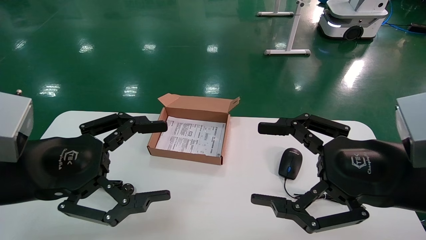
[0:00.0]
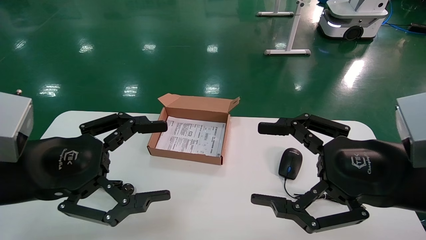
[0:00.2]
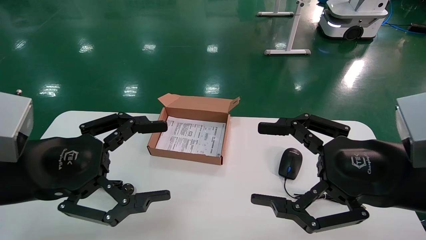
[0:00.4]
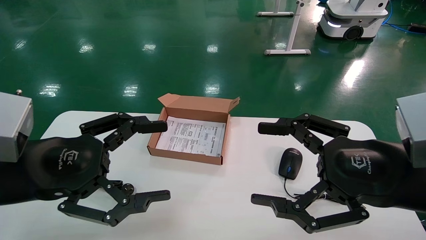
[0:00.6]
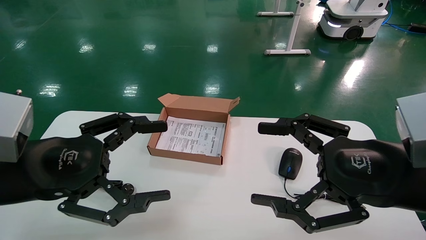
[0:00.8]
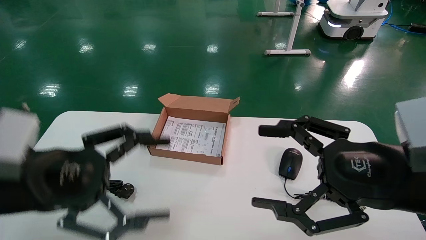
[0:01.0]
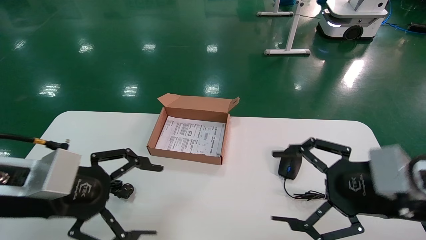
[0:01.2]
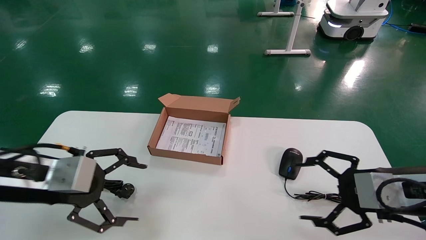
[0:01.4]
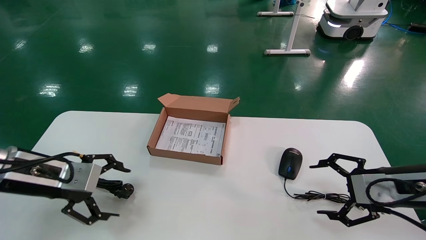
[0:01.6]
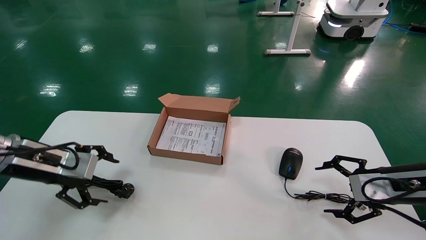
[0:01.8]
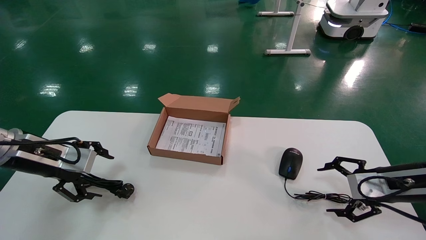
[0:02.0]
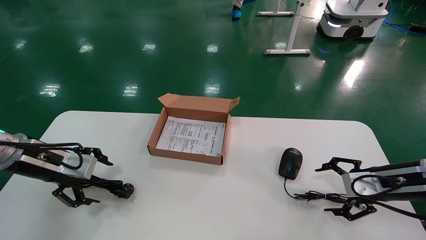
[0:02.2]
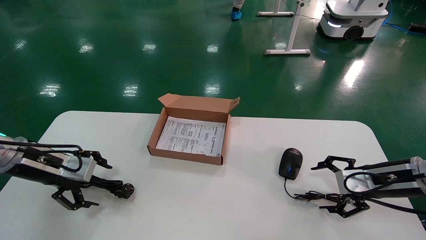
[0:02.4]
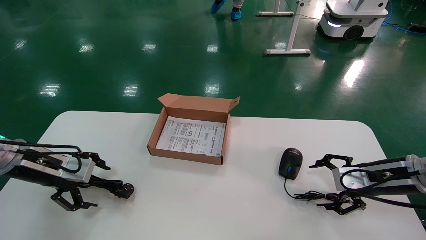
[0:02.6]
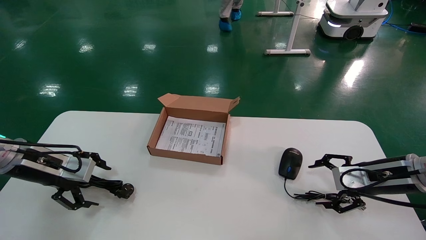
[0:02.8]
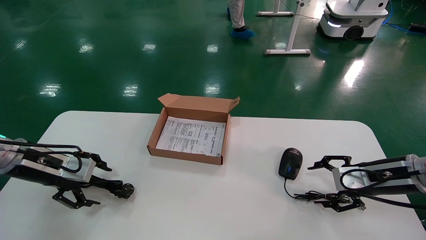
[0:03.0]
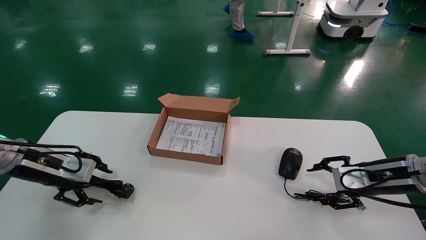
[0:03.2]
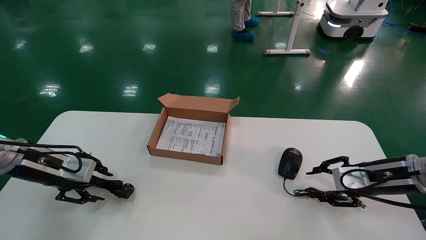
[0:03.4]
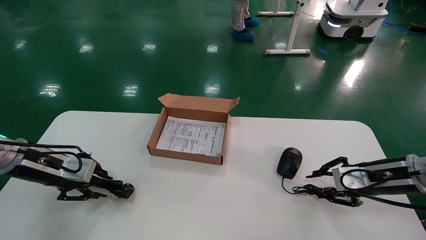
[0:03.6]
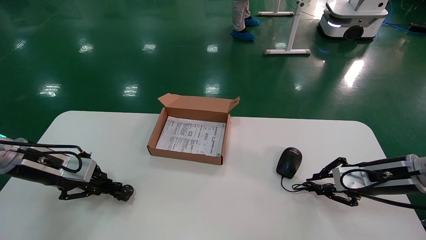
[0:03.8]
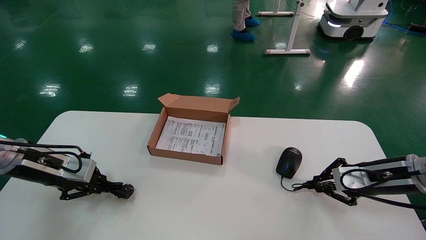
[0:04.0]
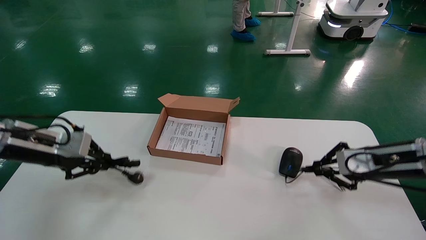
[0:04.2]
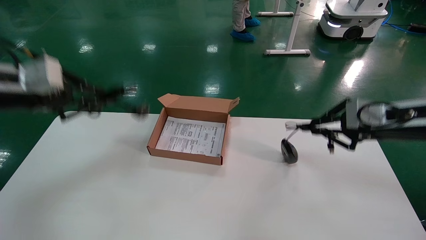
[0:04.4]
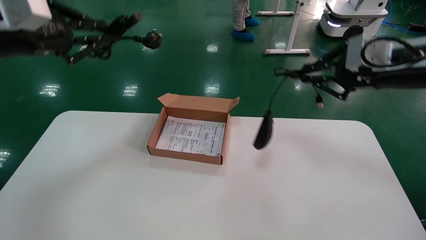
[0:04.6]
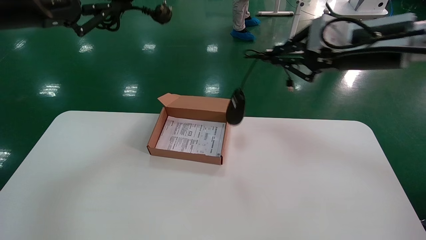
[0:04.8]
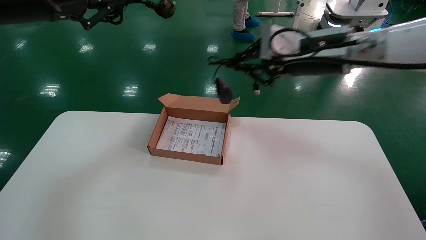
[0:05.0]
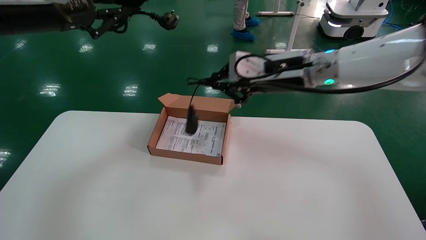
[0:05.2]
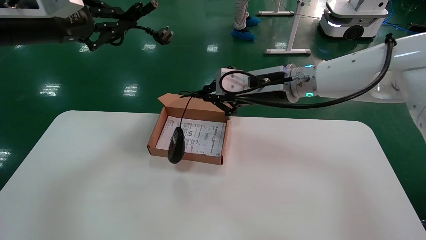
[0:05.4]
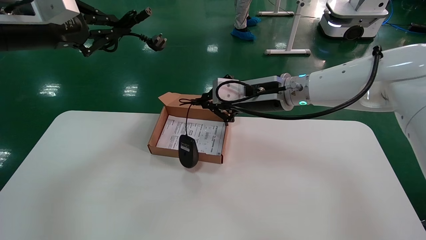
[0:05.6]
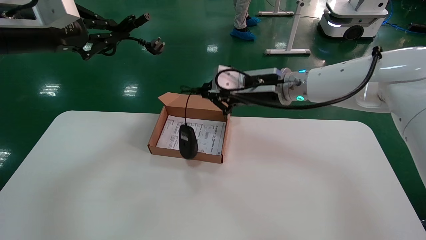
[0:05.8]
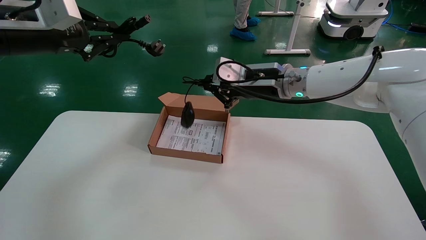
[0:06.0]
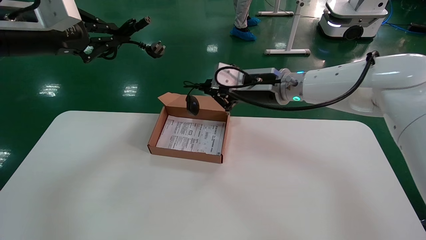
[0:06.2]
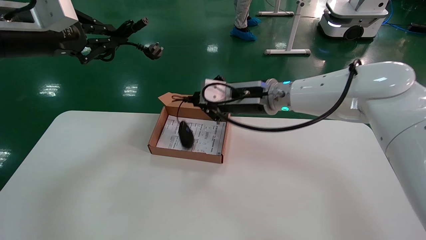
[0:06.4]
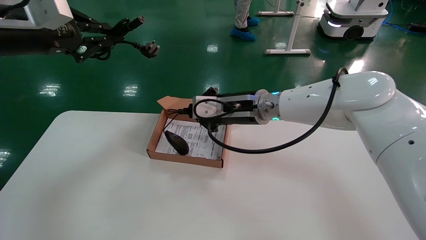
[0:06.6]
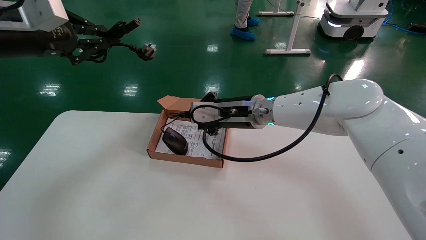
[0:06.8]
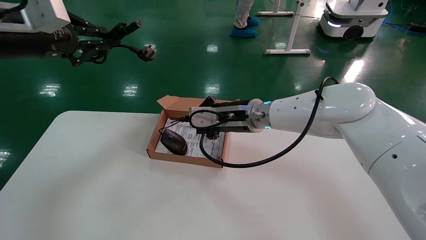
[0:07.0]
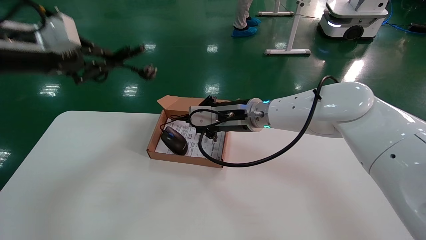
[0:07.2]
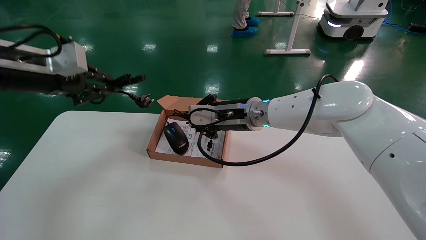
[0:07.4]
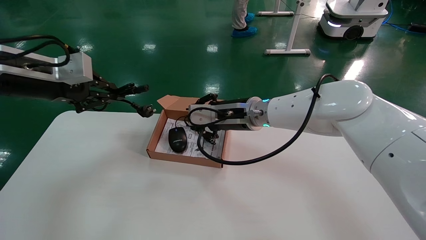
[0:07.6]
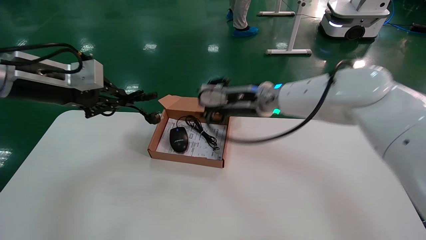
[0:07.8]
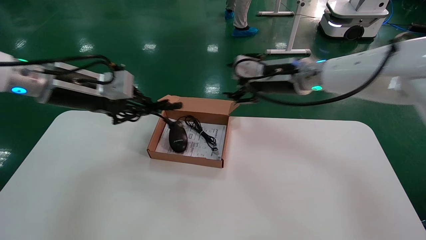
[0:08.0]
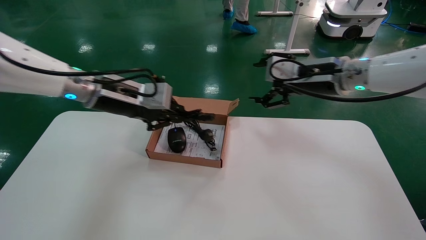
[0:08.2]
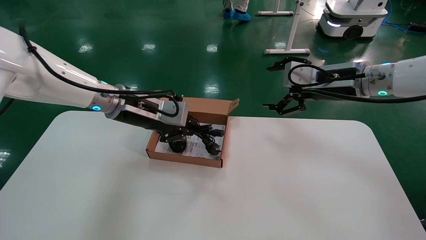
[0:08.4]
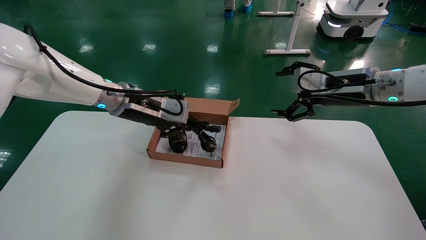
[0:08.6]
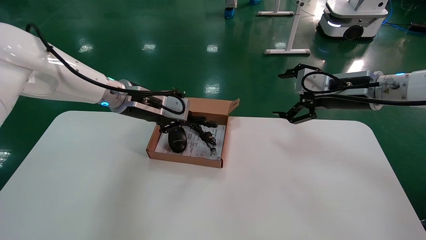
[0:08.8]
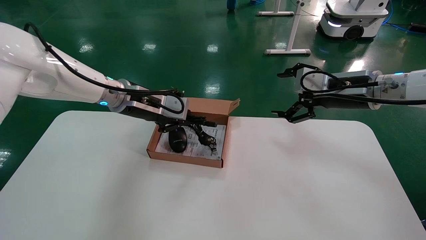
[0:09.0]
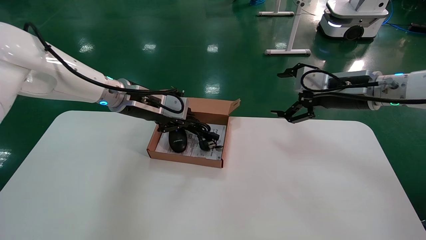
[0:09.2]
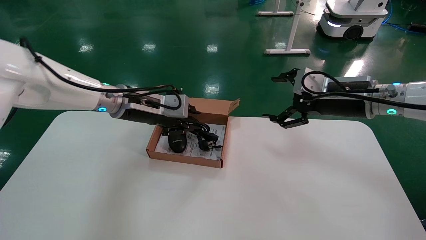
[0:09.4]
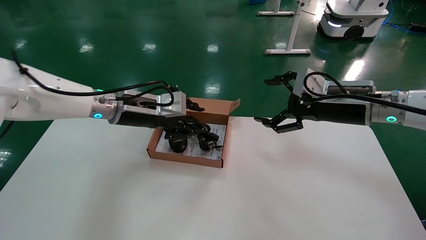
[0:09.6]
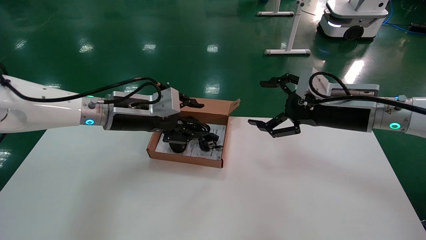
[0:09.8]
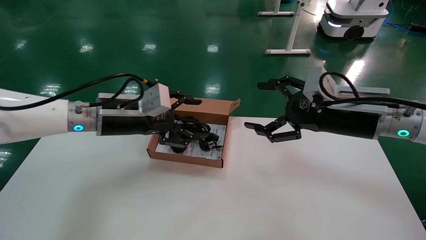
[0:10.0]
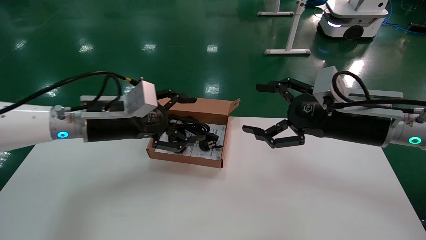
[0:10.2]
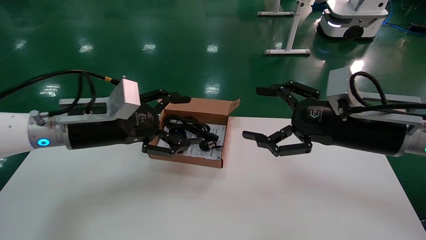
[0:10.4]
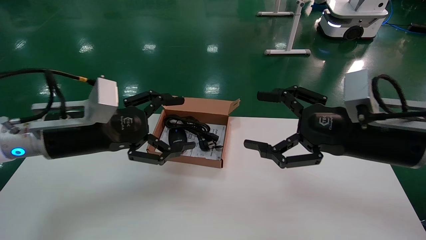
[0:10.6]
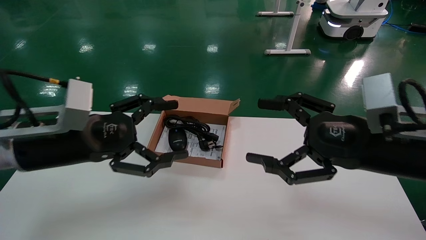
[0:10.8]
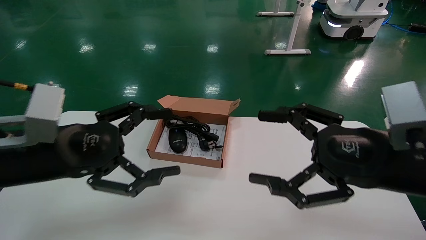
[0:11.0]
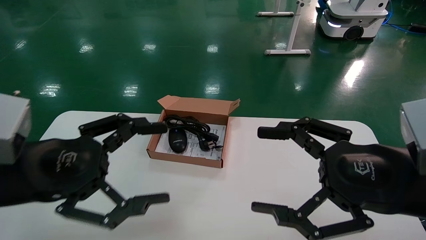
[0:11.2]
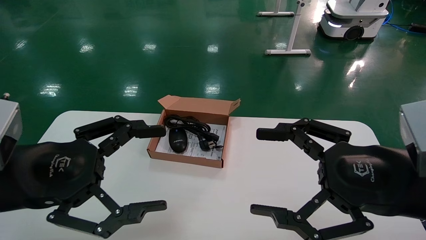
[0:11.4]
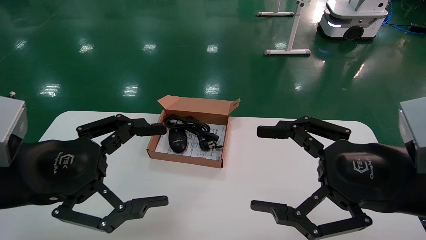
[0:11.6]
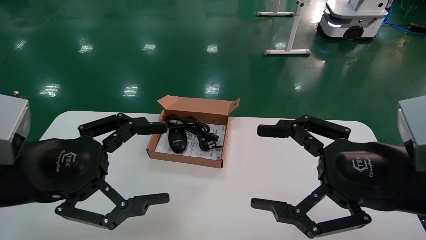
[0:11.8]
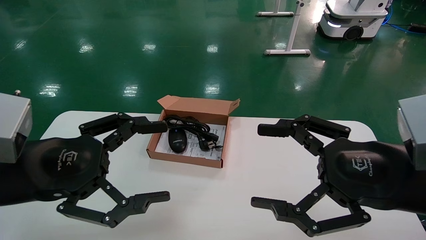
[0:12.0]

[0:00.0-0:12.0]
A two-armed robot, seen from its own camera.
Step, 0:01.2 to 0:03.6: Grab and lift both the mouse and power cord from the accessory packaging area at the same time.
Step, 0:03.8 to 0:09.2: Place the mouse and power cord into the box.
0:00.0 to 0:01.6: The left gripper shifts roughly 10 cm forward and to the left. Meanwhile the right gripper moves forward, to the right and downward, approximately 15 cm.
0:01.6 to 0:03.0: The left gripper heads forward and to the left, covering some 10 cm. Meanwhile the right gripper is displaced forward by some 5 cm.
0:03.0 to 0:04.4: The two grippers go approximately 15 cm upward. The right gripper closes up; the left gripper closes up.
0:04.4 to 0:06.0: The left gripper goes roughly 10 cm upward. The right gripper moves to the left, roughly 25 cm.
0:06.0 to 0:07.6: The left gripper travels downward by about 5 cm, while the right gripper changes place by about 5 cm.
0:07.6 to 0:09.0: The left gripper is displaced to the right, forward and downward by roughly 20 cm. Meanwhile the right gripper heads to the right, covering approximately 20 cm, and opens.
0:09.0 to 0:10.4: The right gripper shifts some 10 cm backward, while the left gripper shifts roughly 10 cm backward and to the left, and opens its fingers.
0:10.4 to 0:12.0: Both grippers travel together backward, some 10 cm.

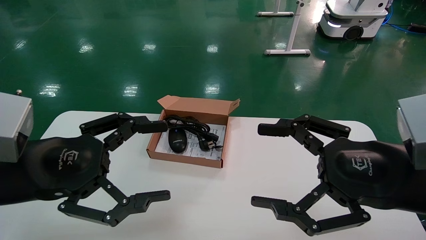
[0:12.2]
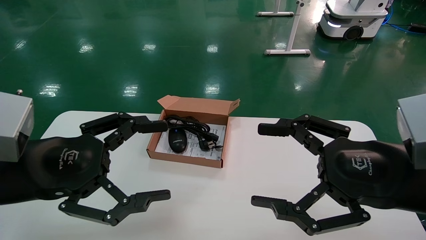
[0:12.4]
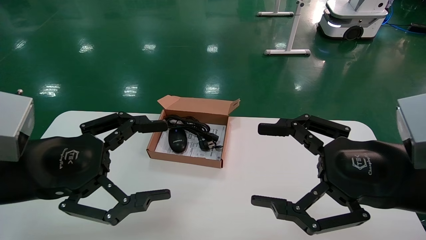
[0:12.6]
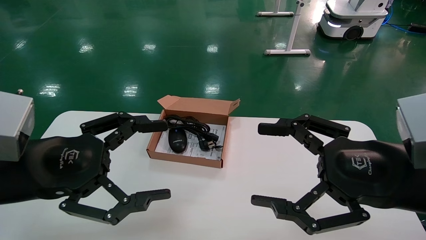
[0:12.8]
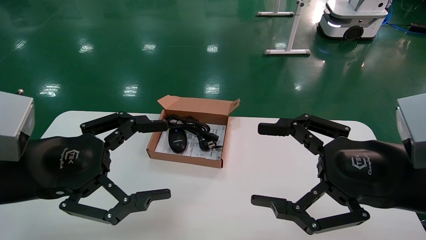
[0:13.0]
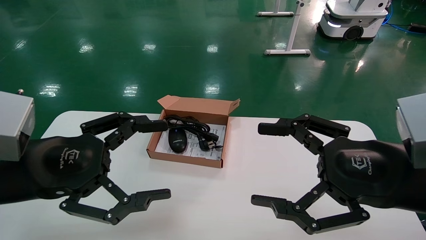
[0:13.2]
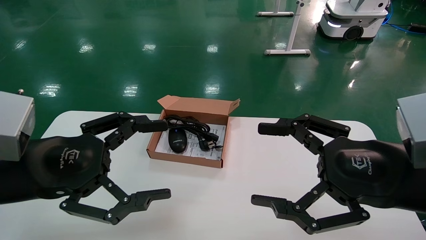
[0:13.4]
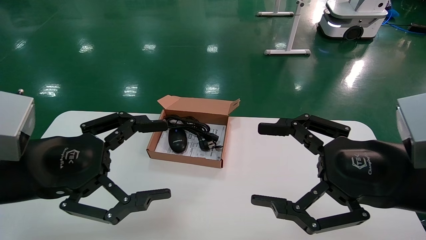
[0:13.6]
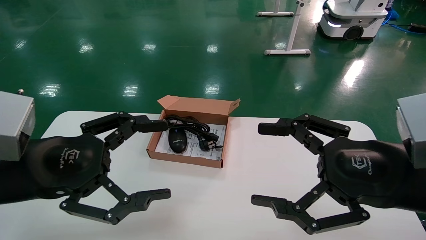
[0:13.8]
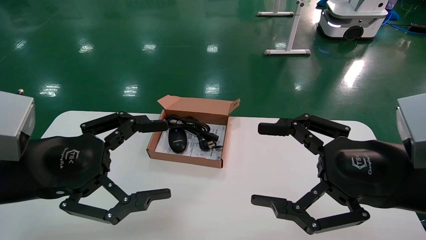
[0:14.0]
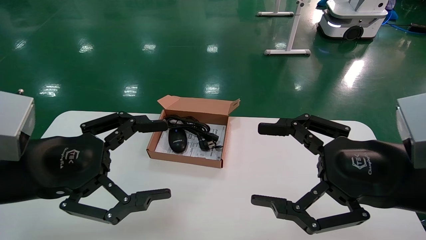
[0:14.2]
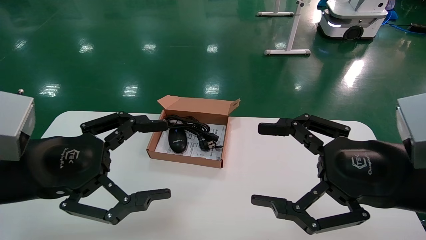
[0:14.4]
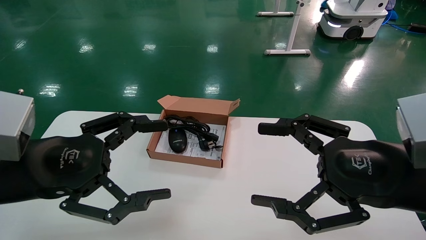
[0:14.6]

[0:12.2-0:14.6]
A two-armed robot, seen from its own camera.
0:12.2 to 0:14.6: Both grippers stay about where they are.
